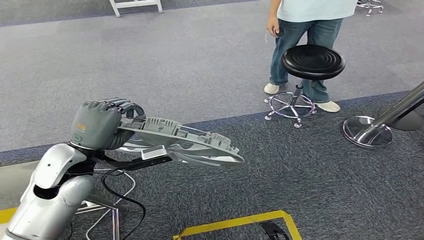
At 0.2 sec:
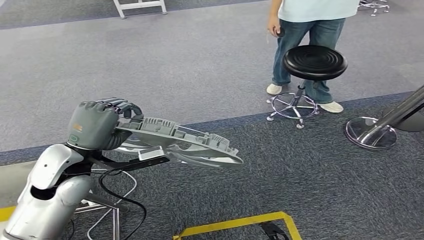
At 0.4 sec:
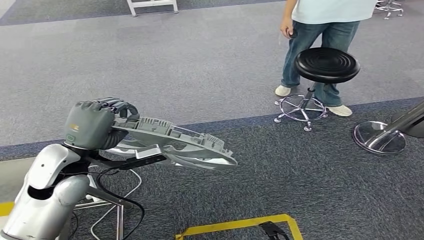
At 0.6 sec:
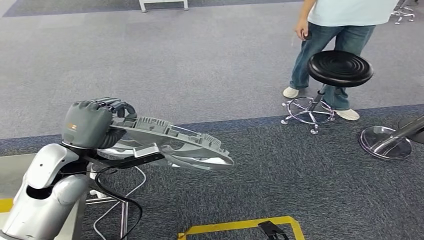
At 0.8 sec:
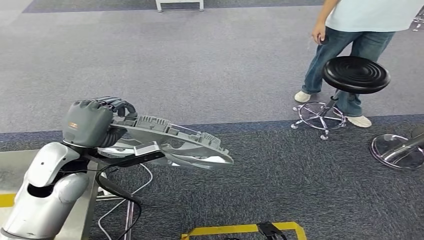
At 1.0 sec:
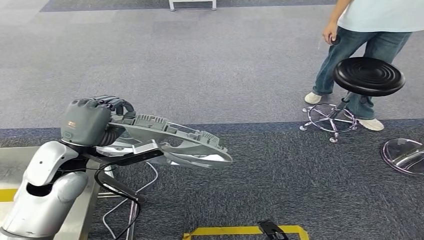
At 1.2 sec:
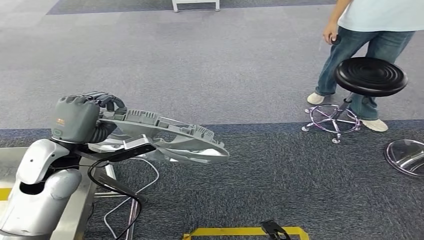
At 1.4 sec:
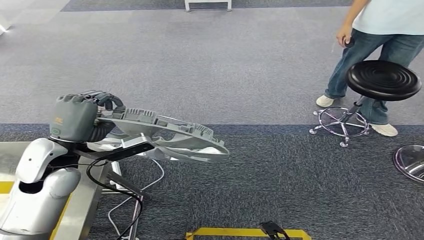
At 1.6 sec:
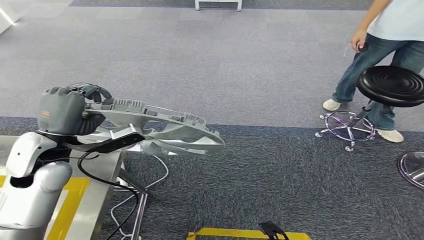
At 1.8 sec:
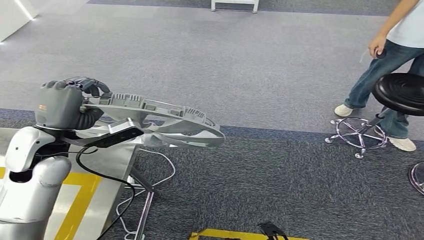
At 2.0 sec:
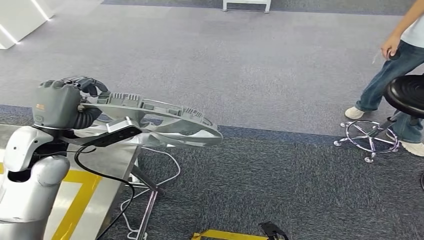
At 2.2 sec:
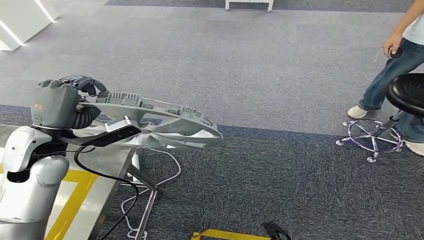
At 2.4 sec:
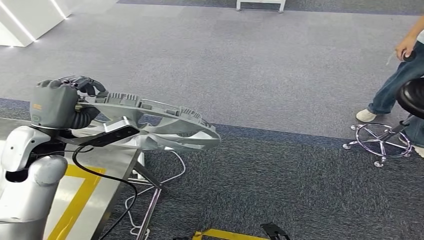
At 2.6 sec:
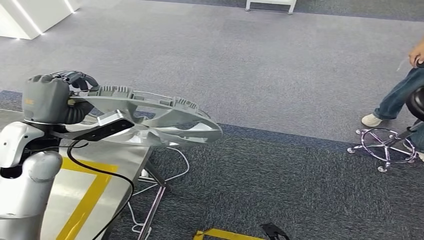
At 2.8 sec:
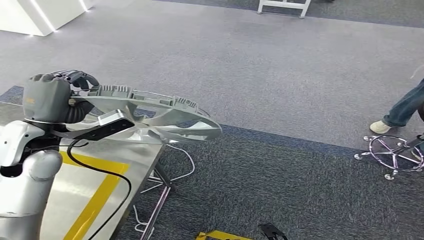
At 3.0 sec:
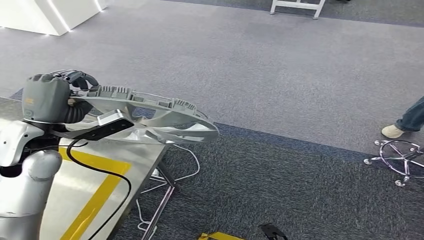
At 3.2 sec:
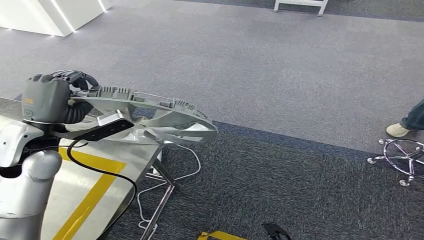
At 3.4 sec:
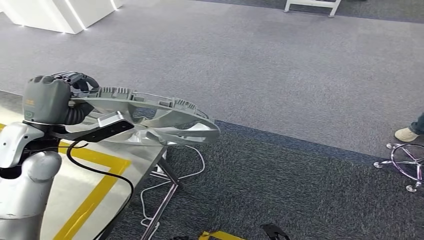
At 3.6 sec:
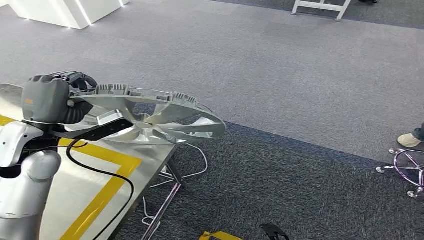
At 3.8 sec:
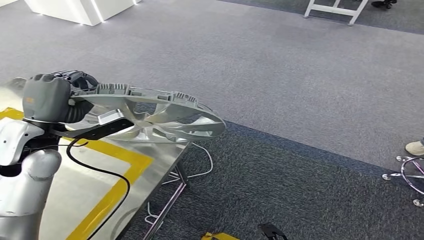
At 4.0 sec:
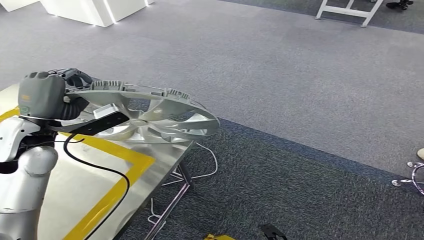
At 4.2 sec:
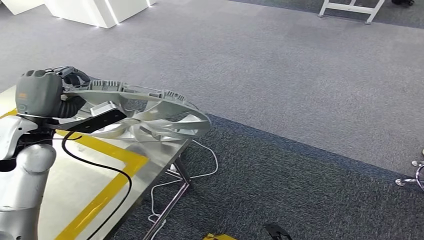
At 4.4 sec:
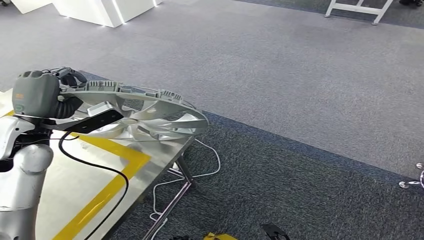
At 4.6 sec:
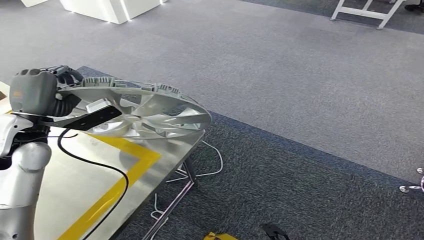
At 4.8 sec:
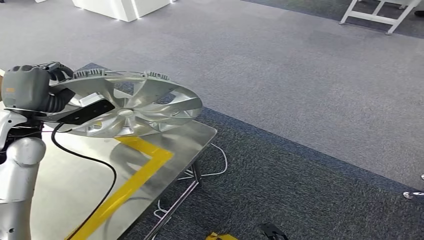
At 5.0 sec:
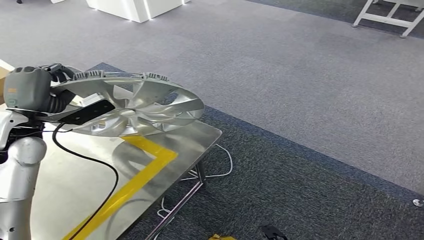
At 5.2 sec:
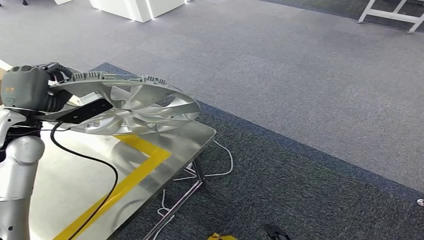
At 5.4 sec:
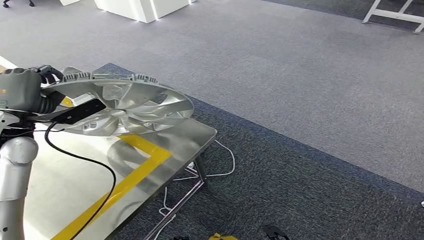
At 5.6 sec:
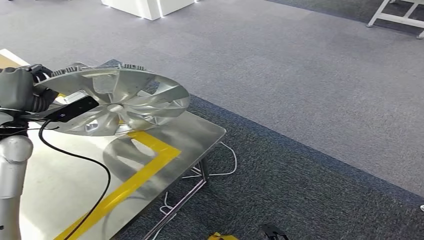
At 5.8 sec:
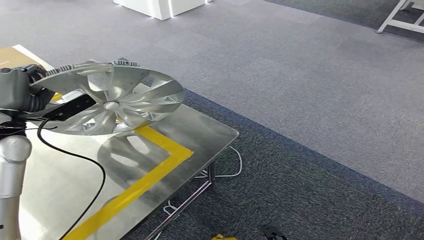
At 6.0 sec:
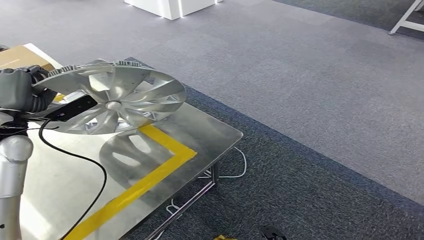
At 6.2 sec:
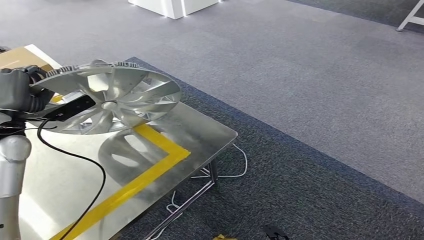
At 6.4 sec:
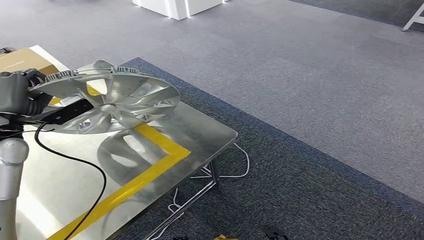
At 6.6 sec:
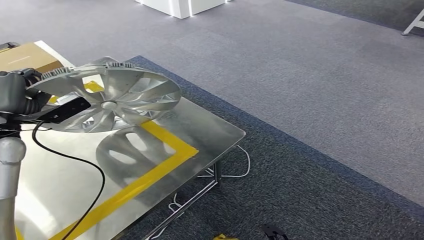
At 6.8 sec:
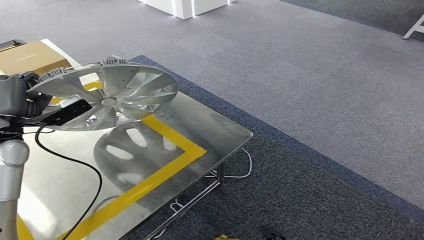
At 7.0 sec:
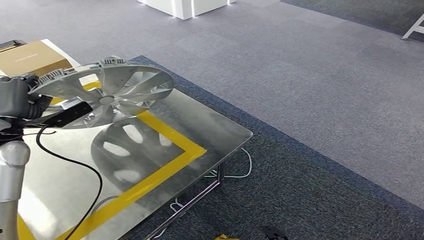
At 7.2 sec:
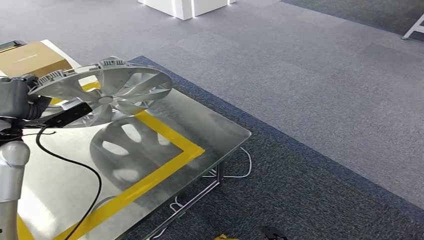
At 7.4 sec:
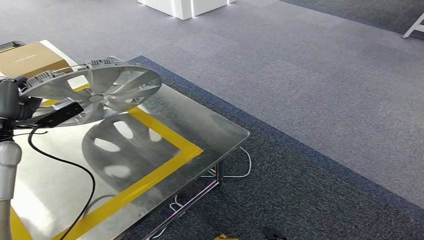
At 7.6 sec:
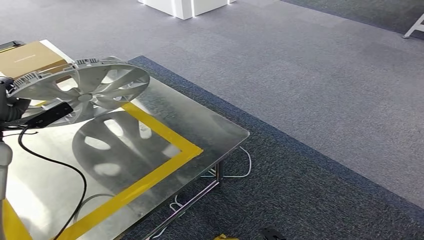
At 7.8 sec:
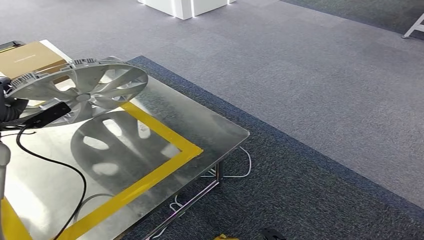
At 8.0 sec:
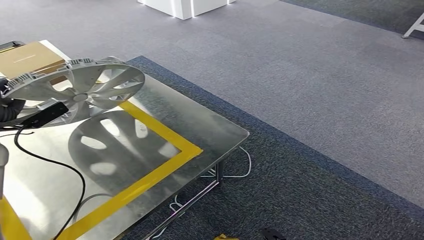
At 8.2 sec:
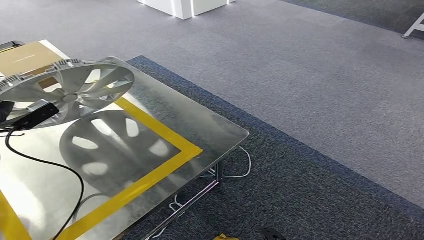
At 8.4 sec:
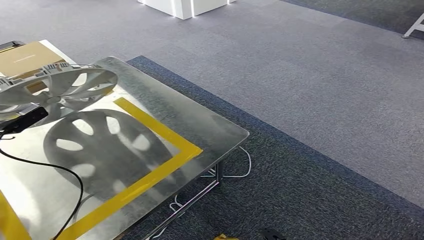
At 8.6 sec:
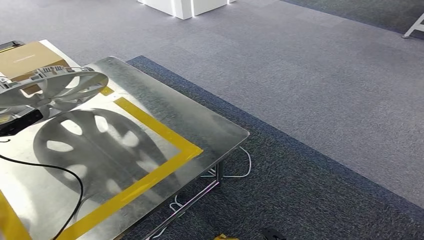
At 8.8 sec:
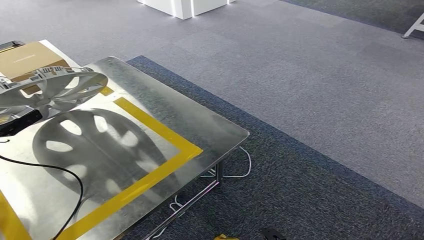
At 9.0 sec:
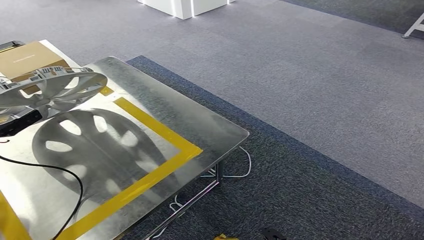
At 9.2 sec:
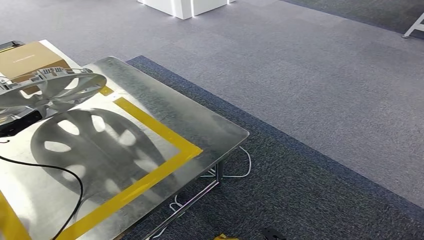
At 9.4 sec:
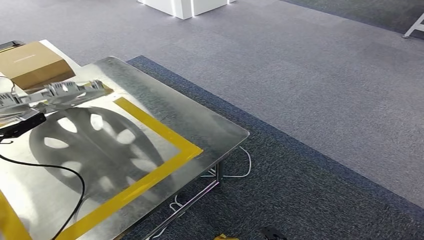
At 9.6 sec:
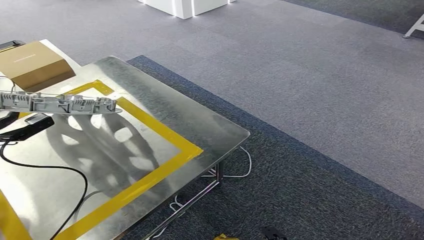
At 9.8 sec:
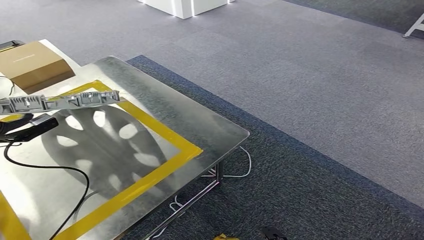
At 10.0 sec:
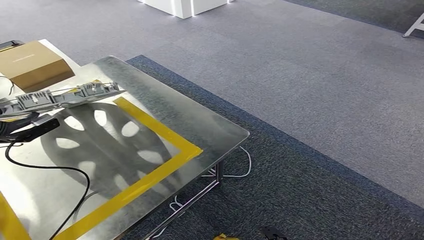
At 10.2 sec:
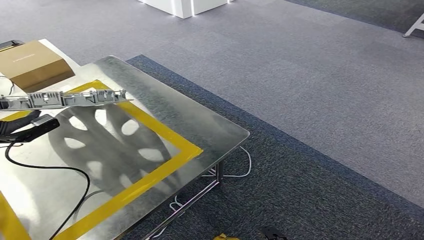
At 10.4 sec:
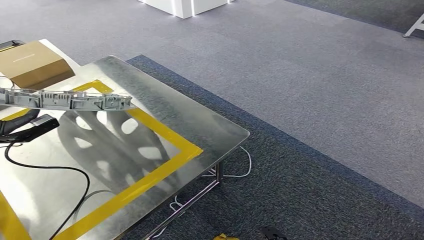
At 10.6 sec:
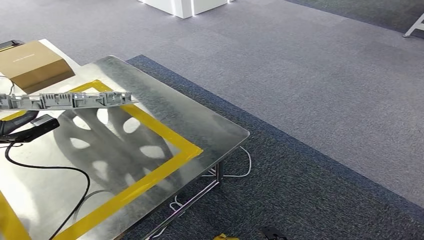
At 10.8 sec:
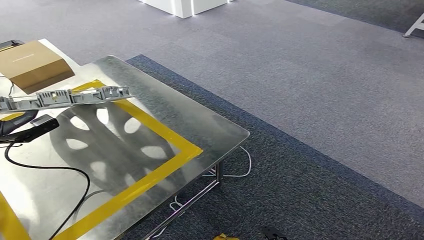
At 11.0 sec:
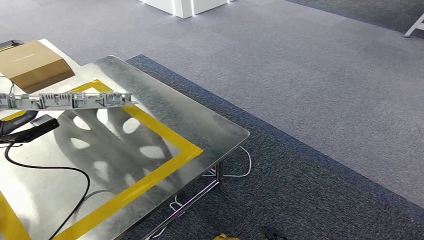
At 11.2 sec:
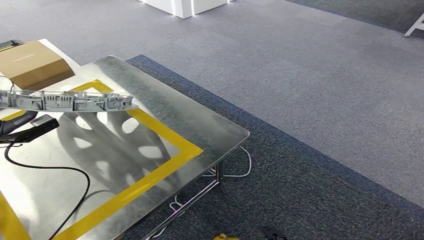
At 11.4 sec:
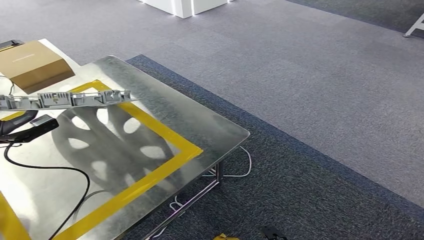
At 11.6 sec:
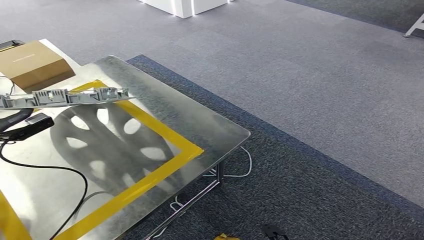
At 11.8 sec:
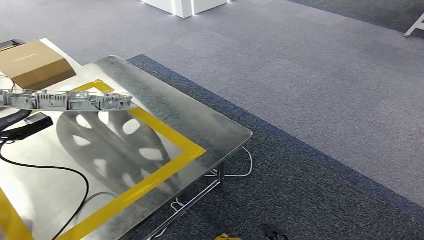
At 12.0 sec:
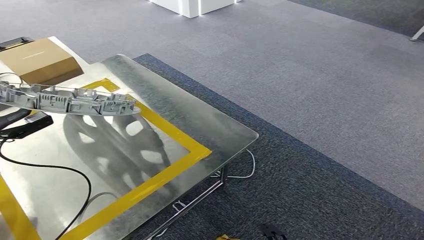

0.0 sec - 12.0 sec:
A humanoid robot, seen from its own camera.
Step, 0.0 sec - 6.6 sec: Move the small component to the workbench.
7.6 sec - 9.0 sec: The left hand goes approximately 5 cm to the left.
9.0 sec - 12.0 sec: There are only small adjustments of the hands.

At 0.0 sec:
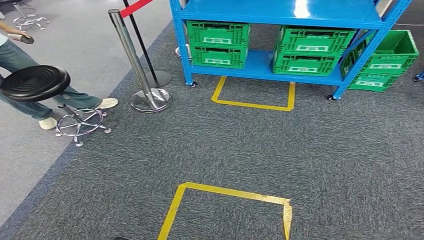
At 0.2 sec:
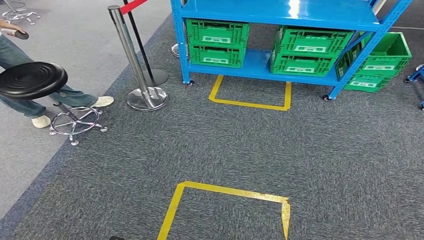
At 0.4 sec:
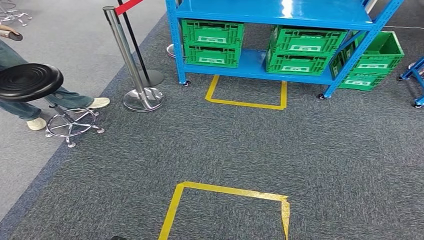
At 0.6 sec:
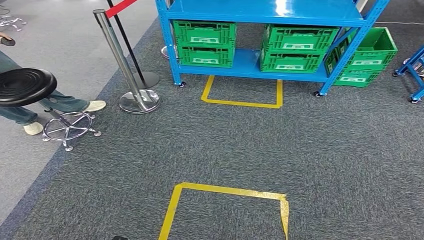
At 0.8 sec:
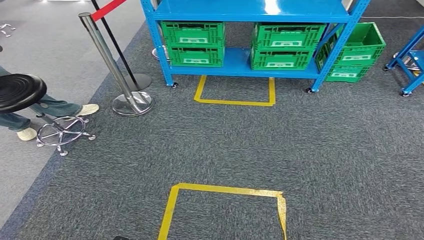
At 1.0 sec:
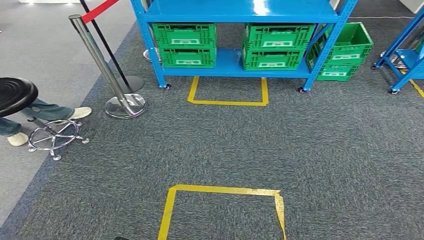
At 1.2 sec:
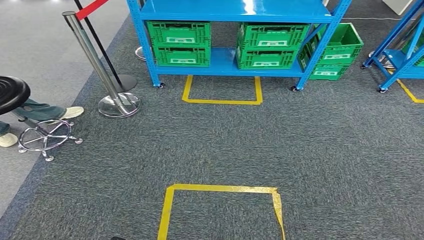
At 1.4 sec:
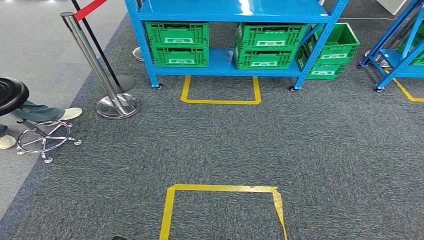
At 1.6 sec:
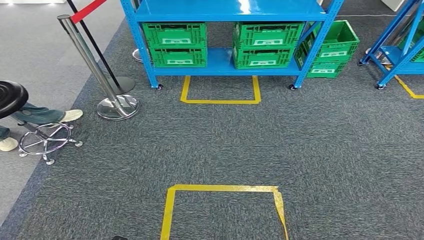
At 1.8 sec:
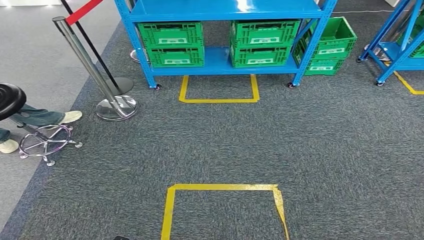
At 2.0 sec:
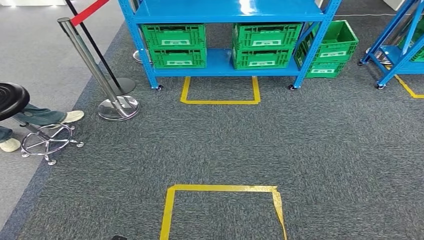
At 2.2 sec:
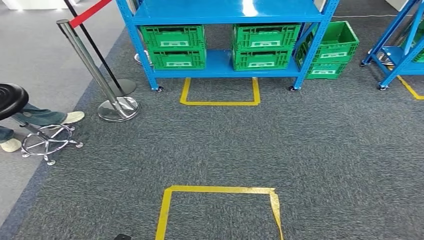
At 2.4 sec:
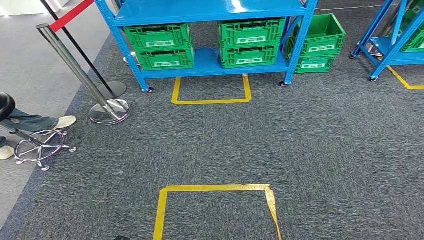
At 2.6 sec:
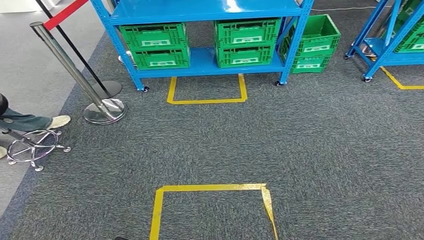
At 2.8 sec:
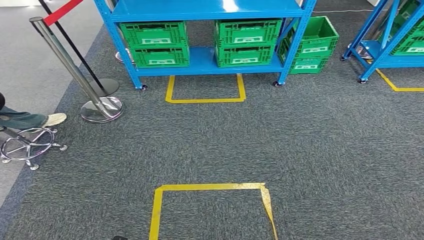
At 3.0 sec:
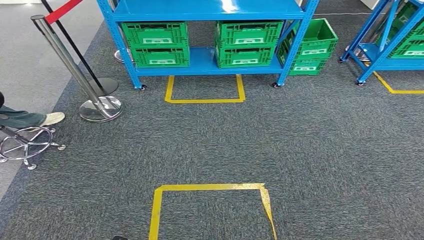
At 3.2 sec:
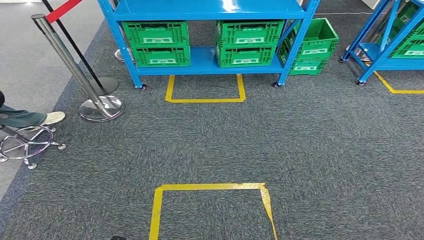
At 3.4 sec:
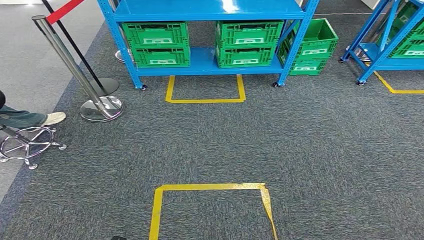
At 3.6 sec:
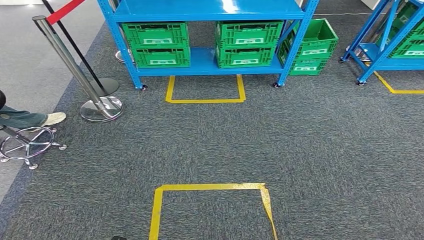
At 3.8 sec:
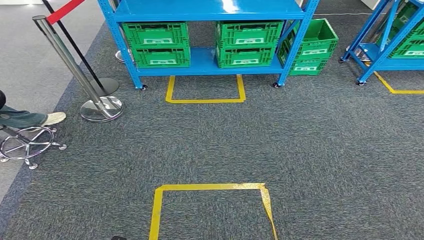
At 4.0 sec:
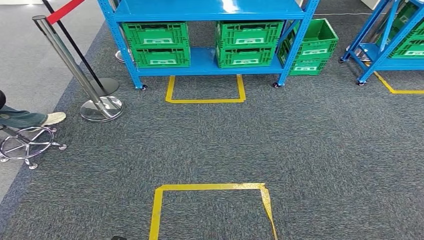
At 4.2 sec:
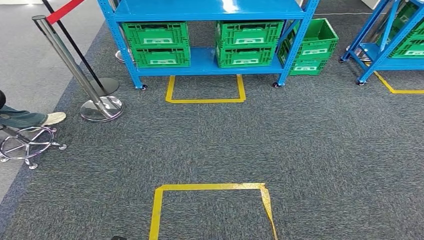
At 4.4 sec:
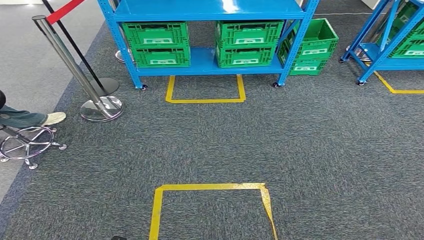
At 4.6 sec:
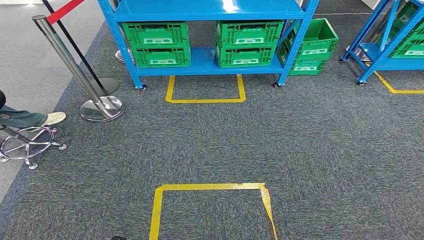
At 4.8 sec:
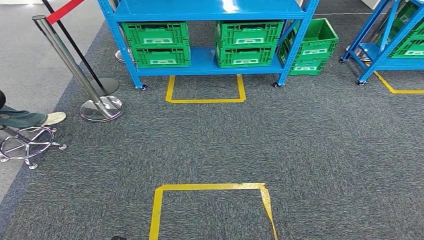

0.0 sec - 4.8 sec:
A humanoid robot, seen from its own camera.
Step, 0.0 sec - 4.8 sec: Return to the initial position at the workbench.
3.2 sec - 4.8 sec: Both hands stay about where they are.
